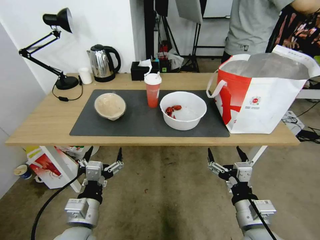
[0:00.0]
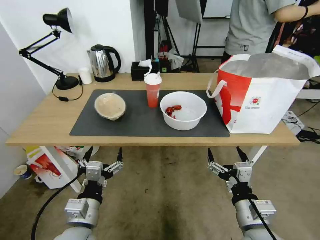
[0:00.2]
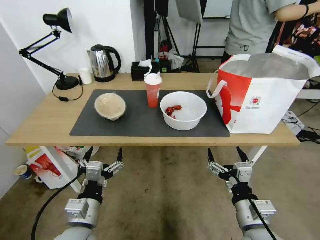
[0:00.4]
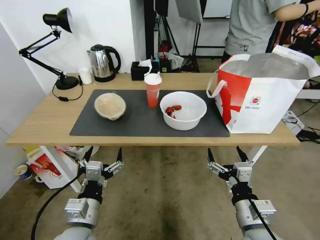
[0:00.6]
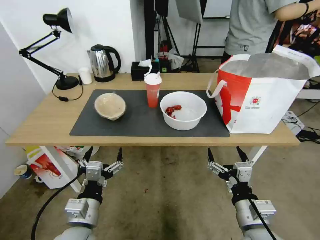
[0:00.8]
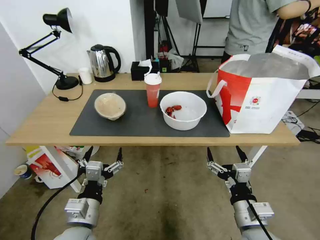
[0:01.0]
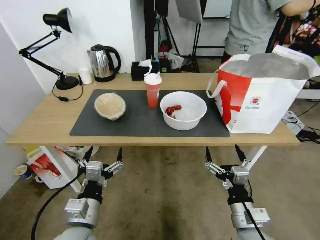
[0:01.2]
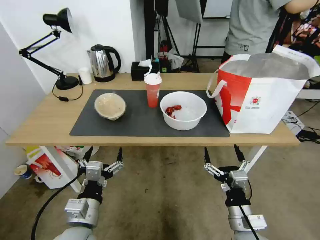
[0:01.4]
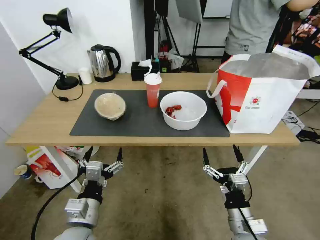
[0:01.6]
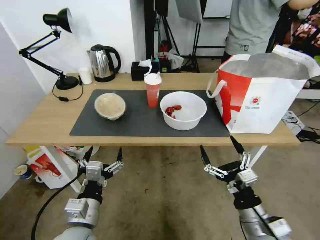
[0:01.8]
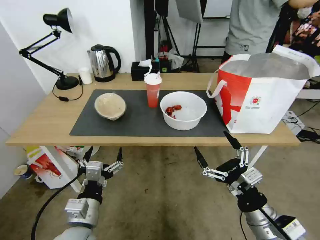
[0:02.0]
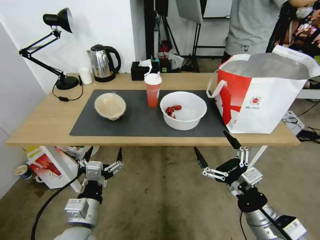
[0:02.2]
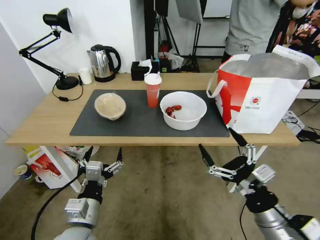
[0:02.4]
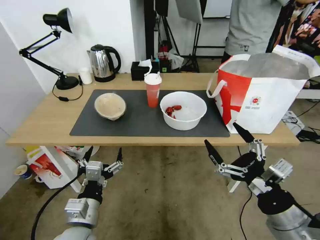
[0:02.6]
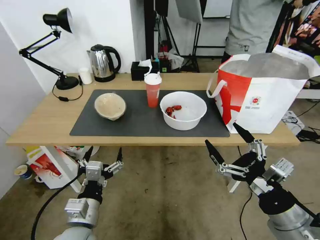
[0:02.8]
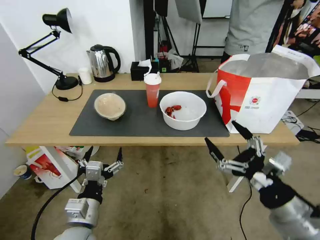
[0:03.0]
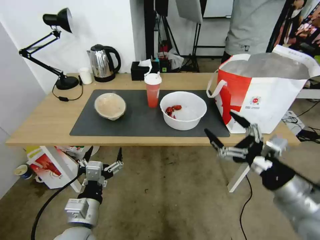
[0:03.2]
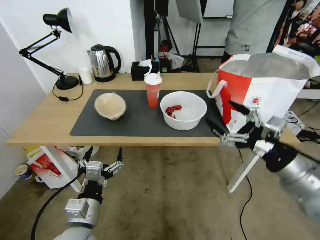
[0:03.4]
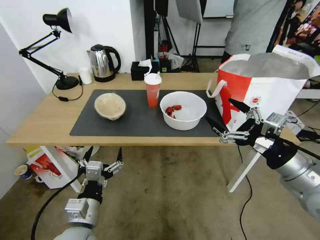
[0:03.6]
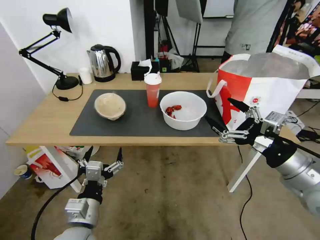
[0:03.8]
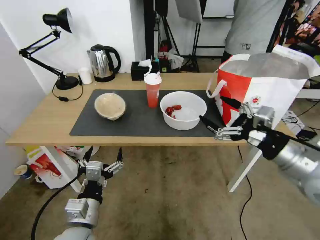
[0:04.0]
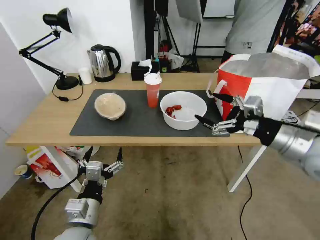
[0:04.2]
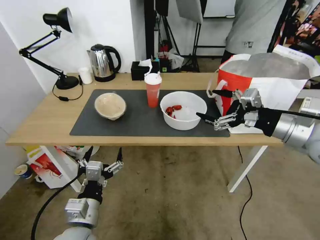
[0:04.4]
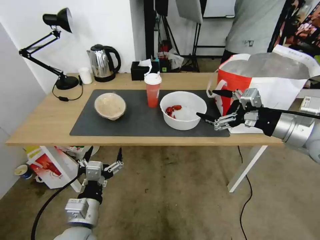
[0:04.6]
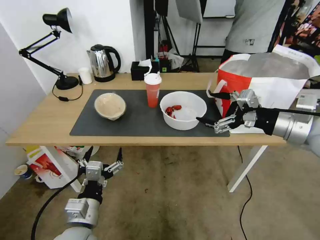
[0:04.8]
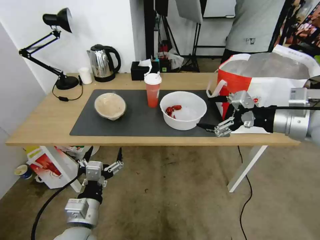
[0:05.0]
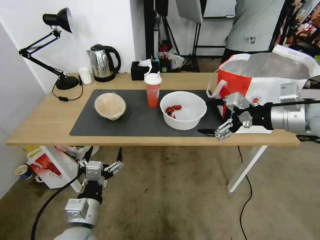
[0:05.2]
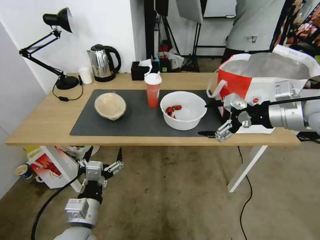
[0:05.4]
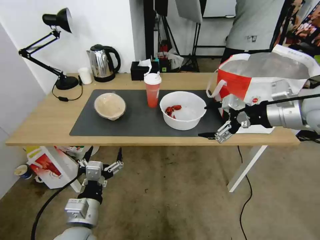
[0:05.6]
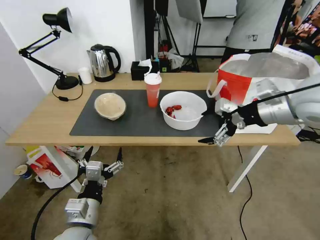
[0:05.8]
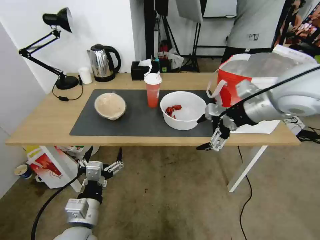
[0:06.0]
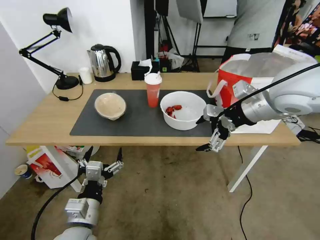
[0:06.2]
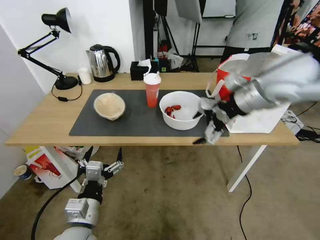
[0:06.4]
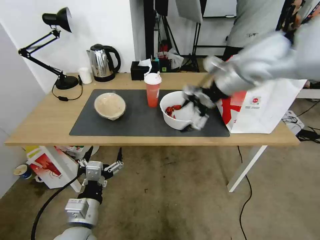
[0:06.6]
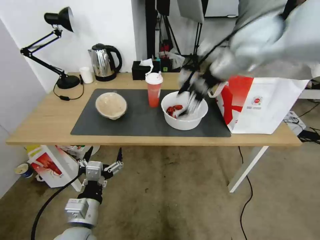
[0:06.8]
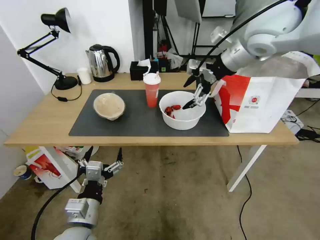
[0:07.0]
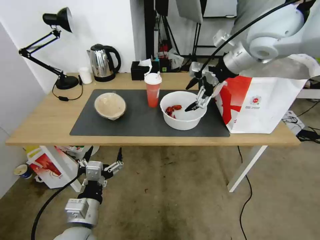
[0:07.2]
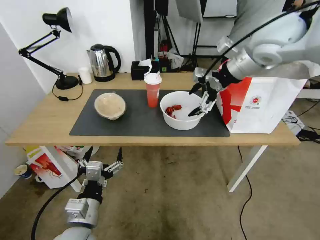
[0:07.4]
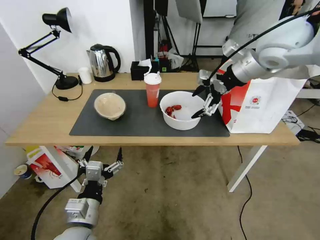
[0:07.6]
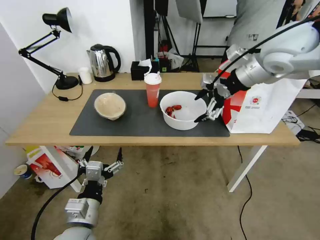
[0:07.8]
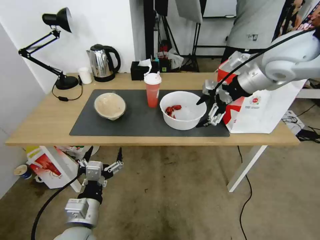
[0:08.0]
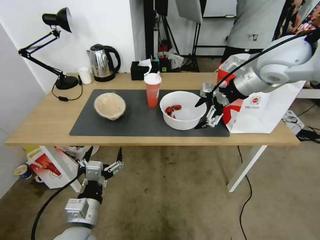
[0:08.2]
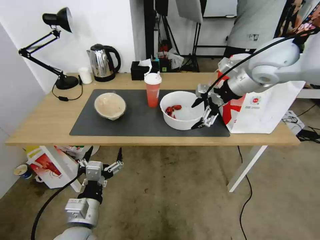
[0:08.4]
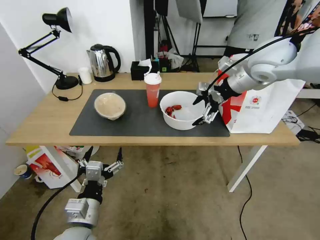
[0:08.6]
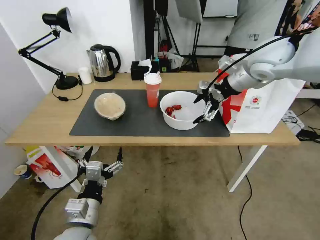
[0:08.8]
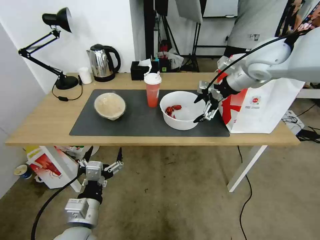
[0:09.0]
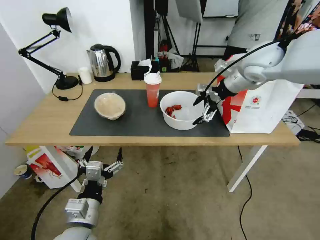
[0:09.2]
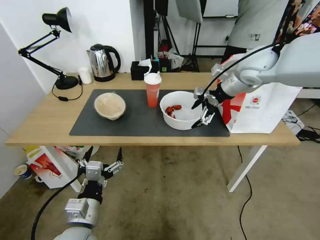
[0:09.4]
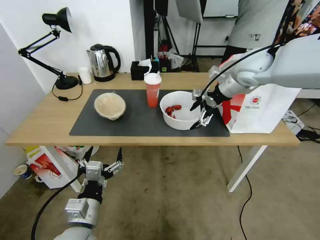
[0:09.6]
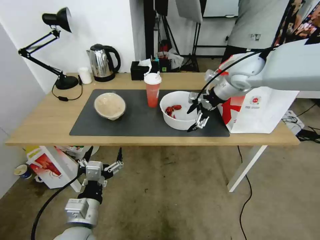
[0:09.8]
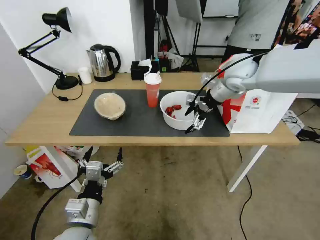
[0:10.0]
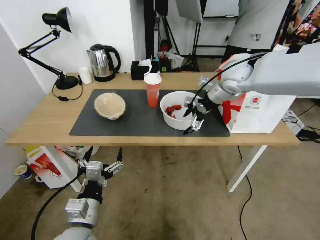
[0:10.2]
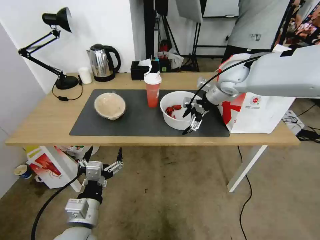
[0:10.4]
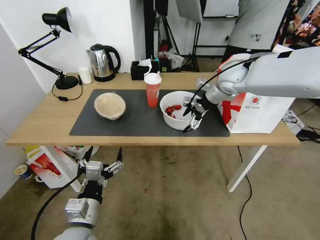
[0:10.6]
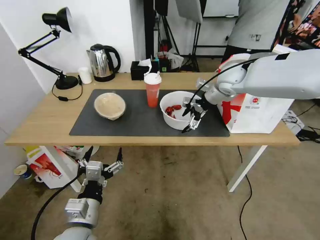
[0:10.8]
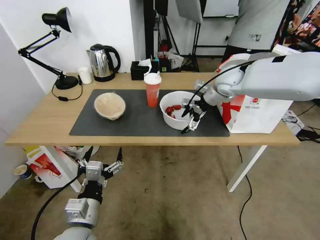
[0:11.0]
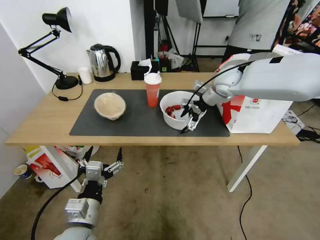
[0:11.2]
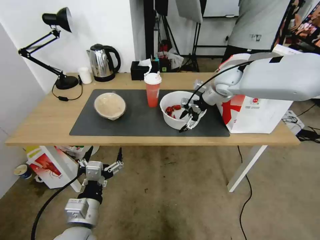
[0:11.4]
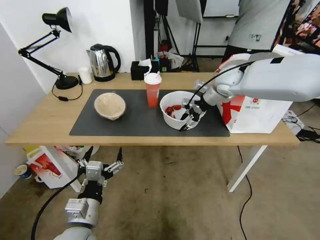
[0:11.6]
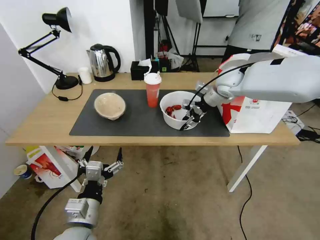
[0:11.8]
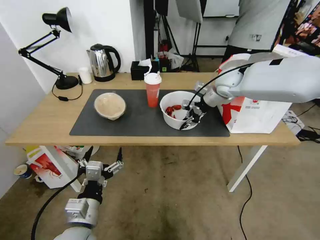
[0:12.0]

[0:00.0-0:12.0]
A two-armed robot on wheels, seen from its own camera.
Task of the whole recording: Pick up the trash from the table and place it into the takeout bag.
0:01.6 to 0:03.0: The right gripper travels upward and to the right by some 15 cm.
0:03.0 to 0:04.4: The right gripper shifts roughly 20 cm forward and upward.
0:04.4 to 0:06.0: The right gripper goes approximately 15 cm forward, upward and to the left.
0:06.0 to 0:07.6: The right gripper shifts approximately 10 cm forward and upward.
0:07.6 to 0:09.0: The right gripper goes approximately 5 cm downward.
0:09.0 to 0:10.4: The right gripper is displaced downward and forward by about 10 cm.
0:10.4 to 0:12.0: The right gripper closes its fingers.

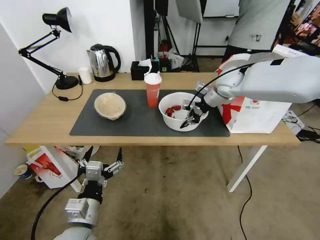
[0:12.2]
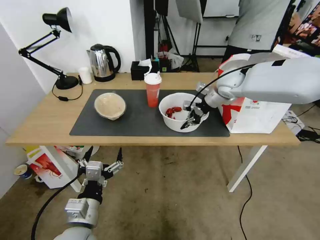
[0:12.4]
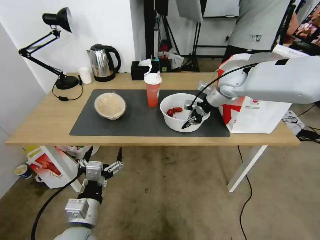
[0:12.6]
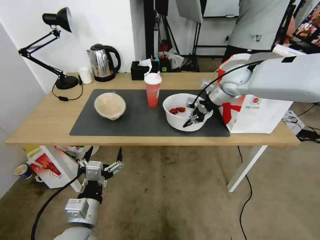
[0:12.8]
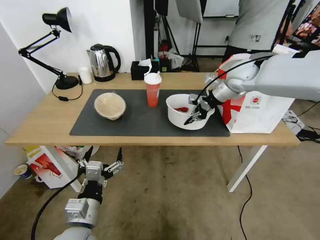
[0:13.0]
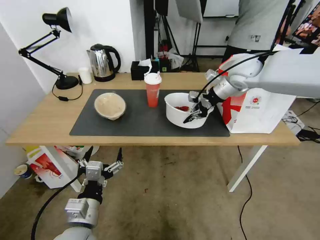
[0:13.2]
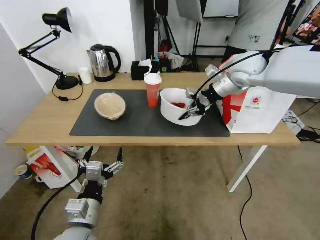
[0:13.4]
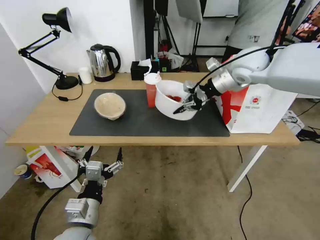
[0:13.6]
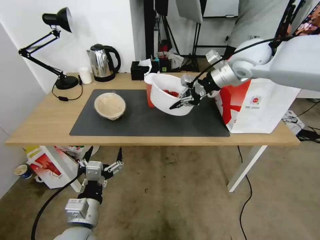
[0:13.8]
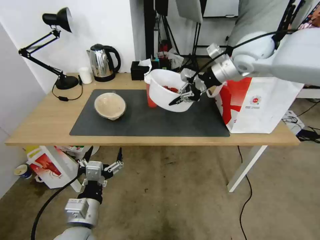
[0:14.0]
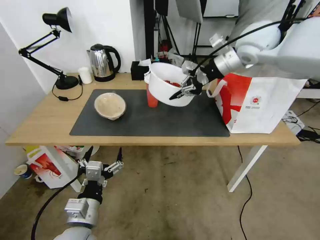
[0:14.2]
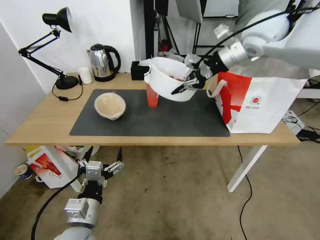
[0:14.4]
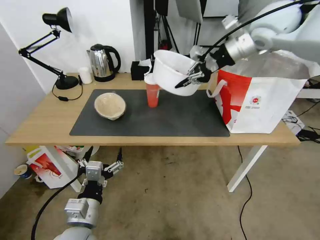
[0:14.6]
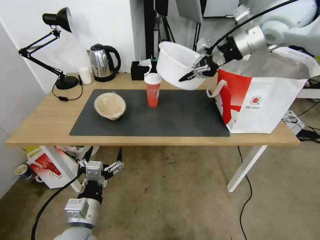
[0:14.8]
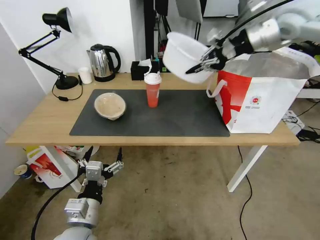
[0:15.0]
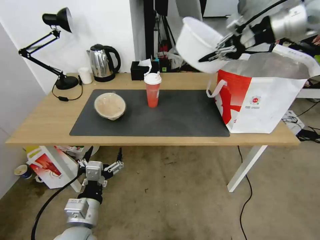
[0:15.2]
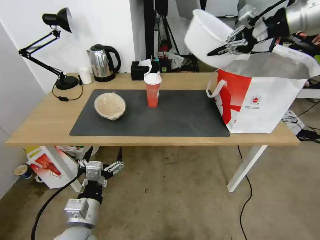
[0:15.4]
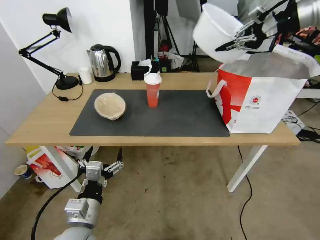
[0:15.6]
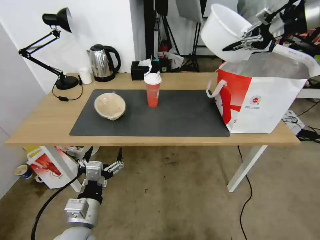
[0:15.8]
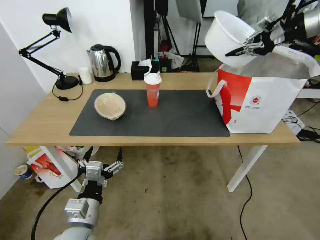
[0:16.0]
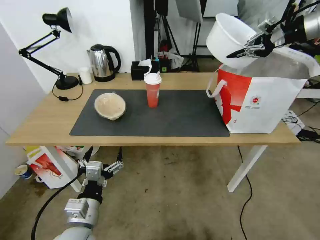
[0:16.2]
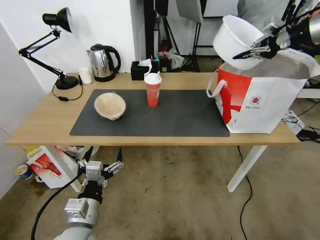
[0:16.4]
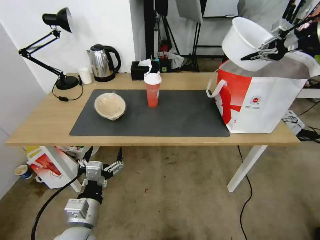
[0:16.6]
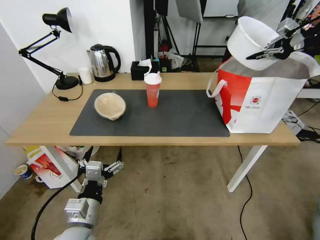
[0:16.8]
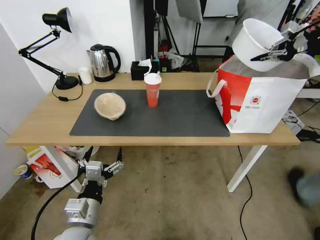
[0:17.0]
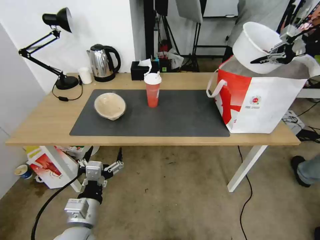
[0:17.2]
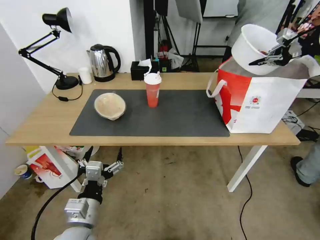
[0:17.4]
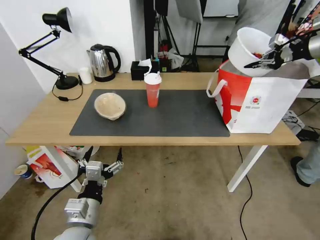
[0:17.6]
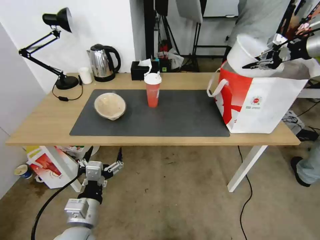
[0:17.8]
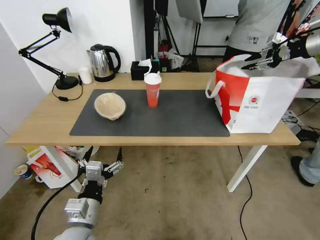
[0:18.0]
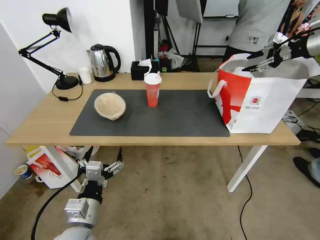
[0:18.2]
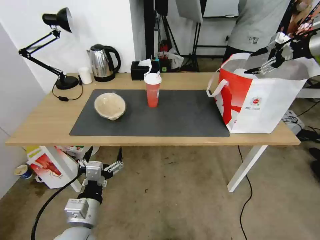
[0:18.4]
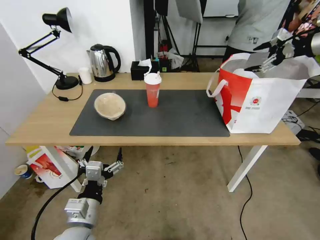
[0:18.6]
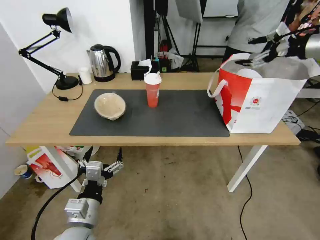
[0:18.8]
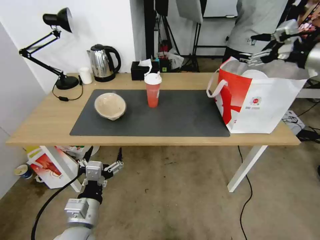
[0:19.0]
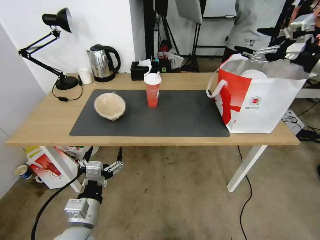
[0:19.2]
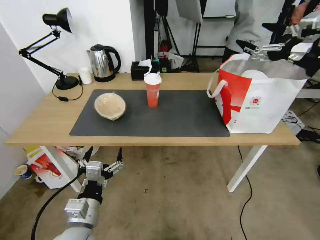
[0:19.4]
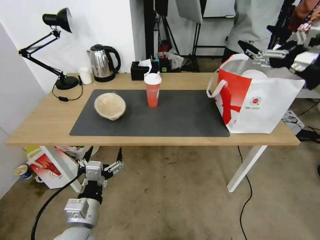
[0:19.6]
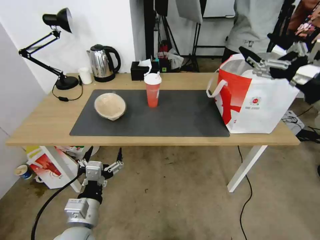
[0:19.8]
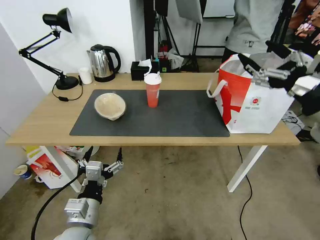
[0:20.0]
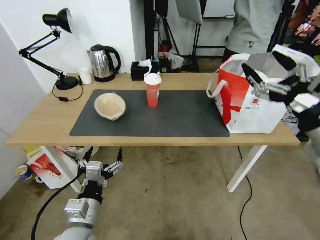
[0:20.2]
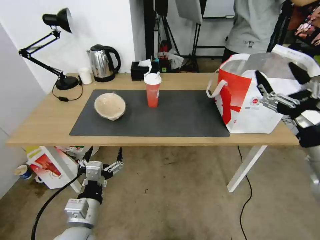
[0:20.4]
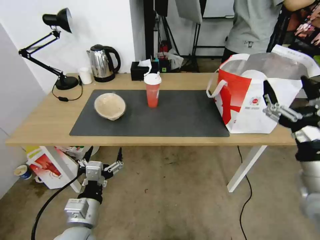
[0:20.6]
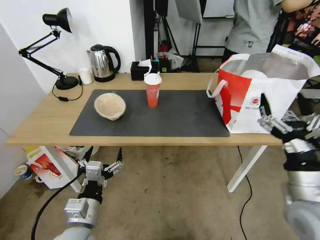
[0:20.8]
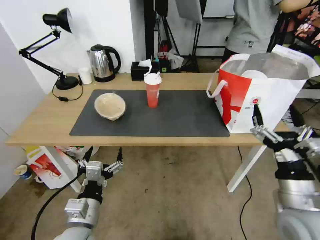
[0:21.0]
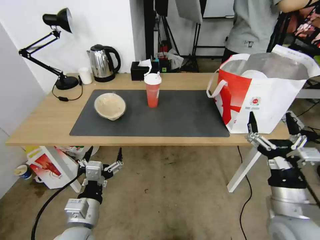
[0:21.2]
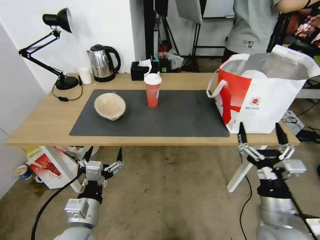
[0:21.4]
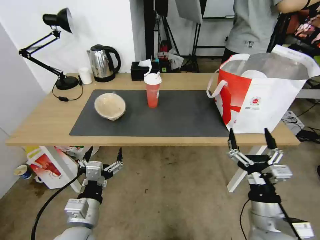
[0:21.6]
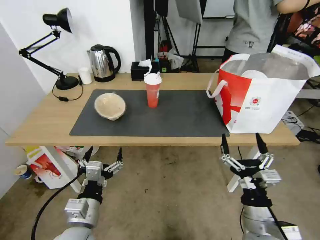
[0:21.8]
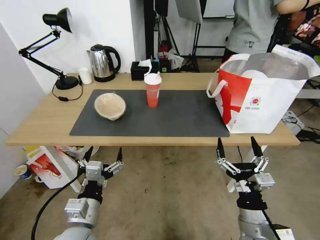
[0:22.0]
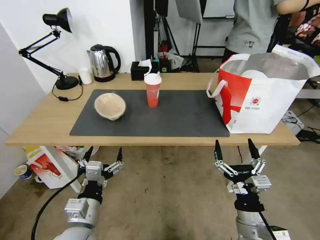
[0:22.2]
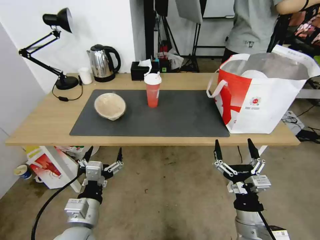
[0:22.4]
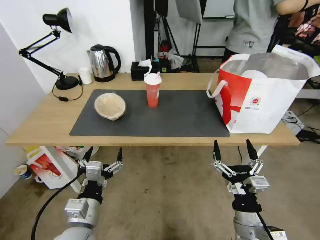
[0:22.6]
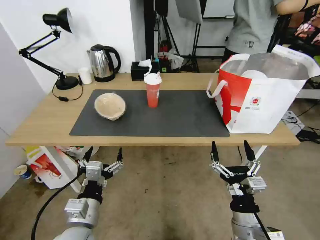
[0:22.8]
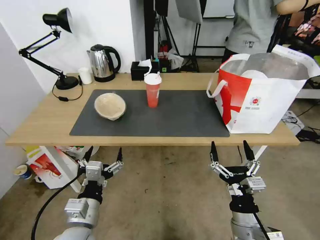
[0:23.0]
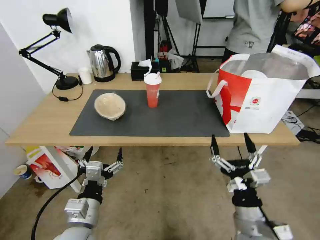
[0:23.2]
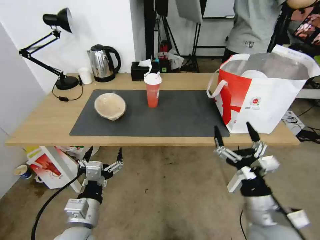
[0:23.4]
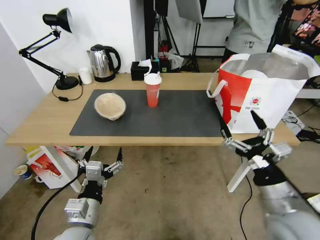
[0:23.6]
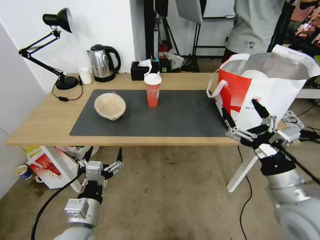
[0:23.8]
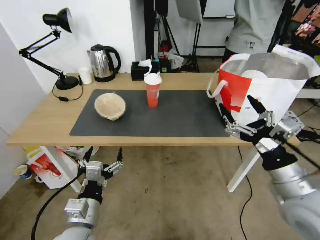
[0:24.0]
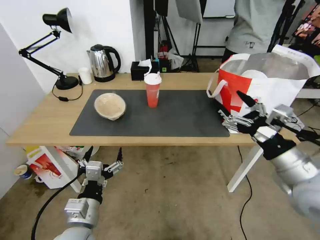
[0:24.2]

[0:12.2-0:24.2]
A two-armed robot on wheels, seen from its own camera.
Task of the whole recording: Pick up the trash from the table and place it into the takeout bag.
0:12.2 to 0:13.8: The right gripper goes roughly 10 cm upward.
0:13.8 to 0:15.2: The right gripper moves upward and to the right, some 15 cm.
0:15.2 to 0:16.6: The right gripper travels to the right by some 15 cm.
0:16.6 to 0:18.2: The right gripper shifts by roughly 5 cm, and opens.
0:18.2 to 0:19.8: The right gripper is displaced backward, to the left and downward by about 30 cm, and opens its fingers.
0:19.8 to 0:21.2: The right gripper is displaced downward and backward by roughly 25 cm.
0:21.2 to 0:22.6: The right gripper travels downward and to the left by some 10 cm.
0:22.6 to 0:24.2: The right gripper travels upward, to the right and forward by some 20 cm.
